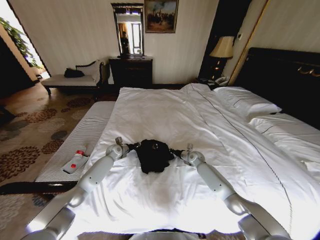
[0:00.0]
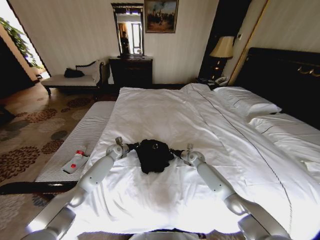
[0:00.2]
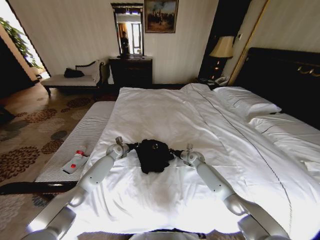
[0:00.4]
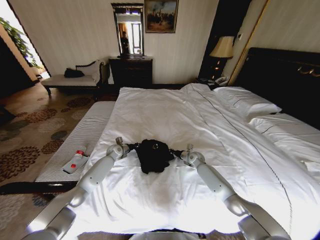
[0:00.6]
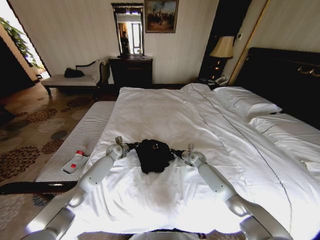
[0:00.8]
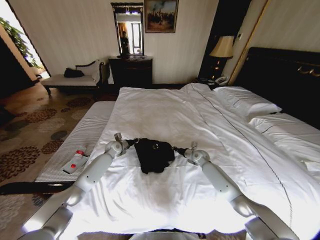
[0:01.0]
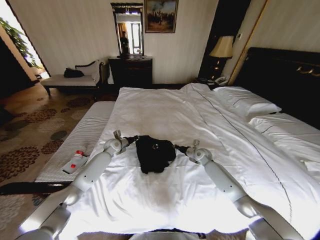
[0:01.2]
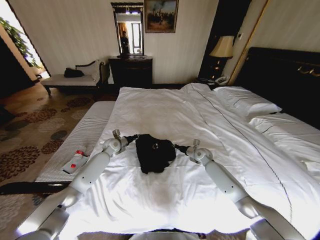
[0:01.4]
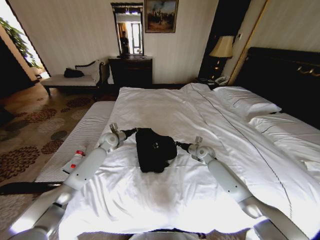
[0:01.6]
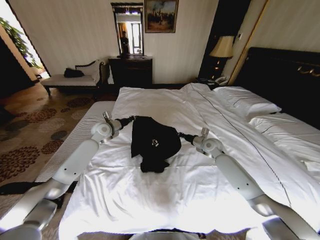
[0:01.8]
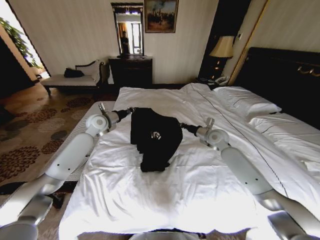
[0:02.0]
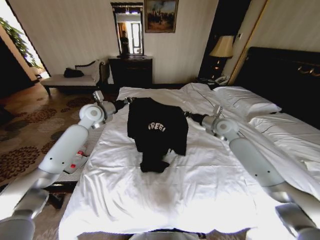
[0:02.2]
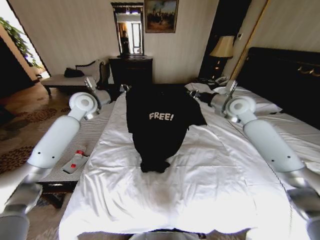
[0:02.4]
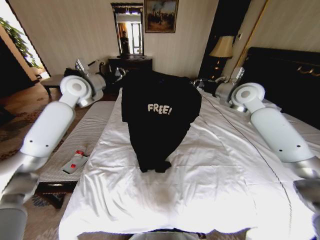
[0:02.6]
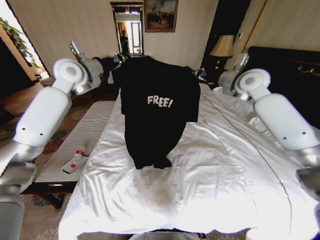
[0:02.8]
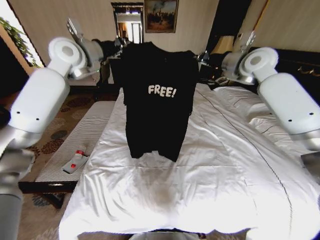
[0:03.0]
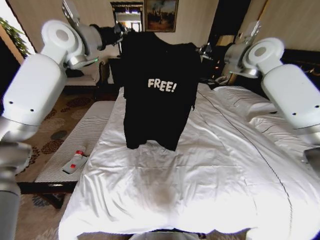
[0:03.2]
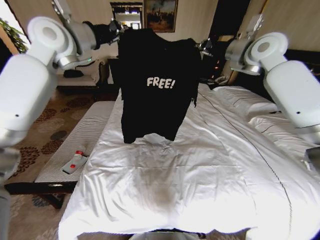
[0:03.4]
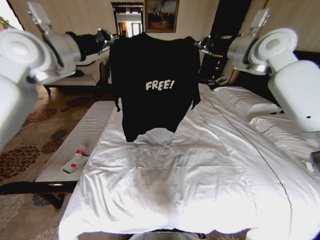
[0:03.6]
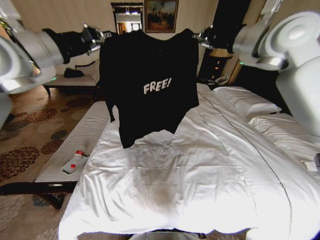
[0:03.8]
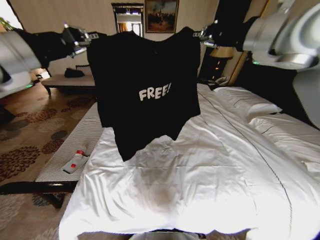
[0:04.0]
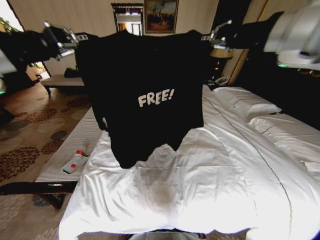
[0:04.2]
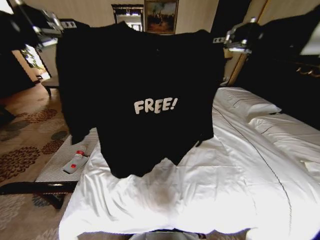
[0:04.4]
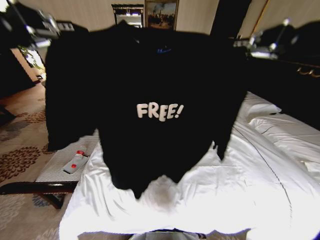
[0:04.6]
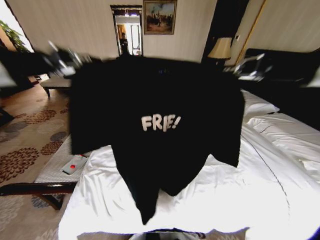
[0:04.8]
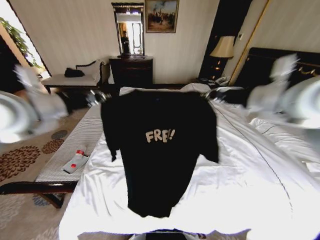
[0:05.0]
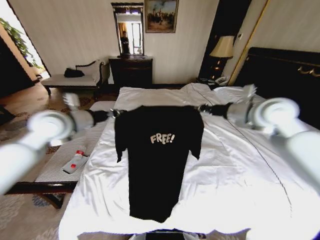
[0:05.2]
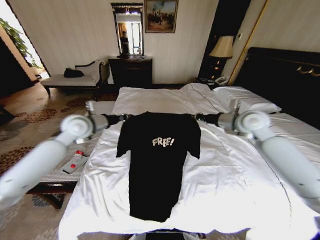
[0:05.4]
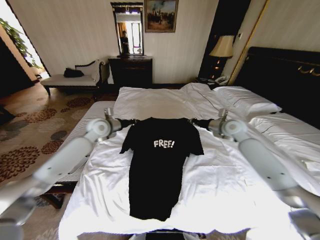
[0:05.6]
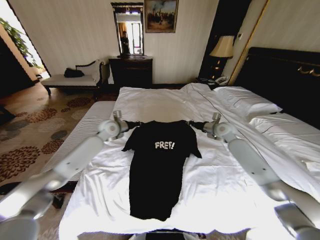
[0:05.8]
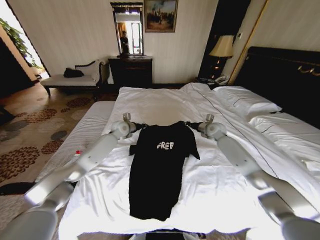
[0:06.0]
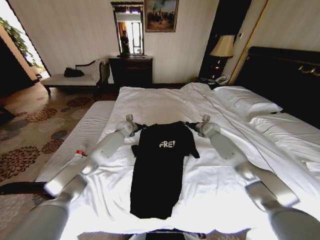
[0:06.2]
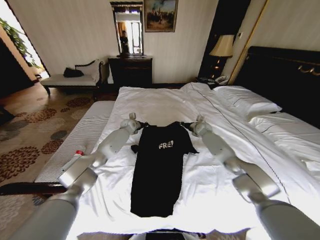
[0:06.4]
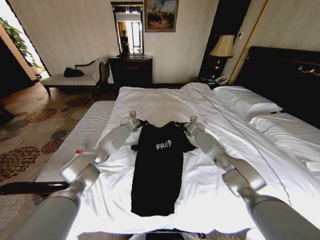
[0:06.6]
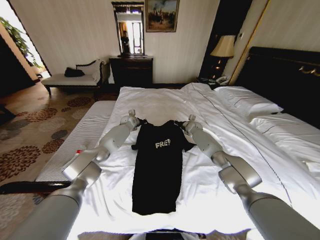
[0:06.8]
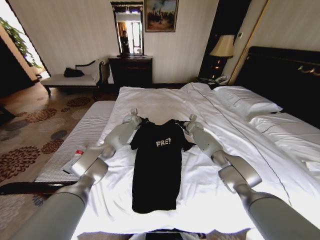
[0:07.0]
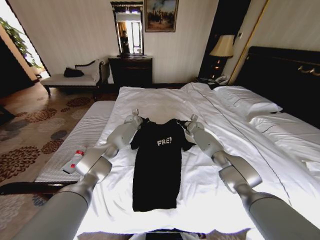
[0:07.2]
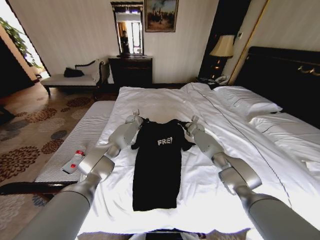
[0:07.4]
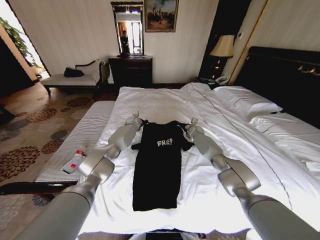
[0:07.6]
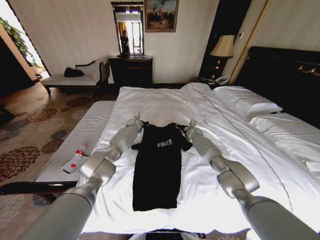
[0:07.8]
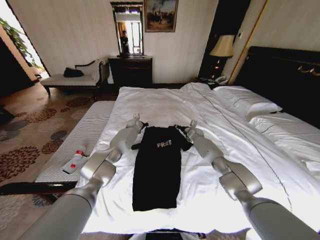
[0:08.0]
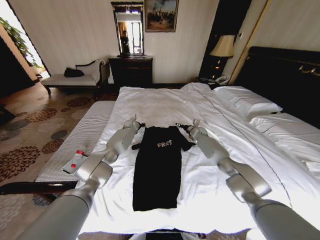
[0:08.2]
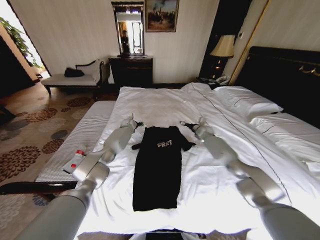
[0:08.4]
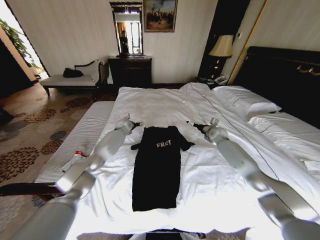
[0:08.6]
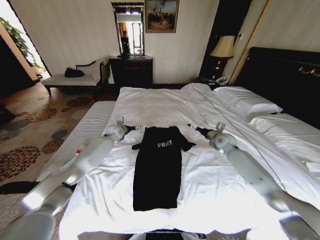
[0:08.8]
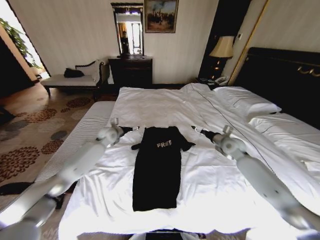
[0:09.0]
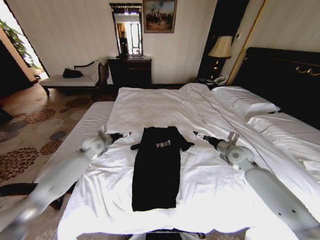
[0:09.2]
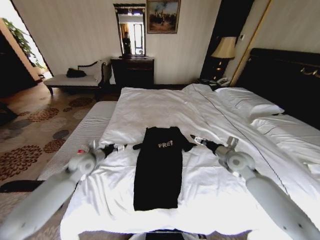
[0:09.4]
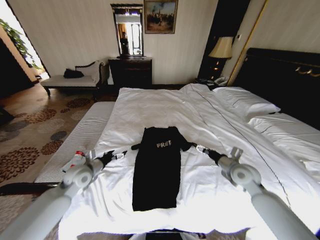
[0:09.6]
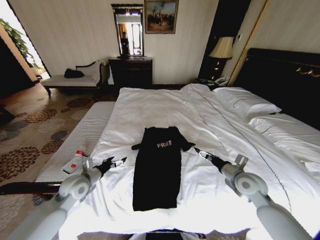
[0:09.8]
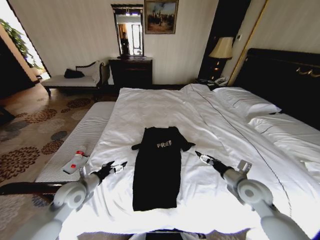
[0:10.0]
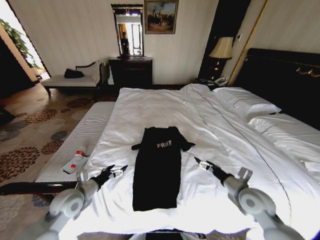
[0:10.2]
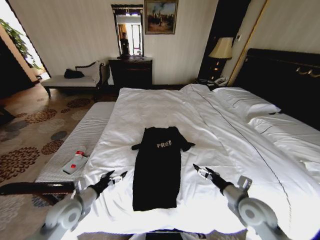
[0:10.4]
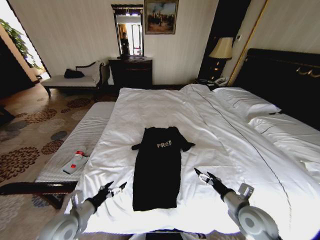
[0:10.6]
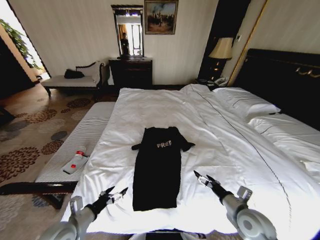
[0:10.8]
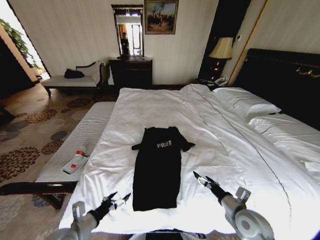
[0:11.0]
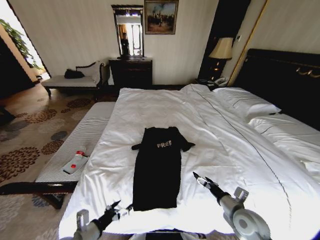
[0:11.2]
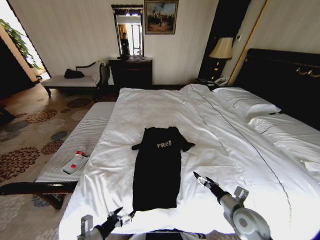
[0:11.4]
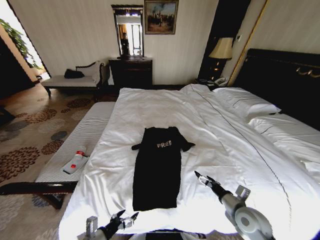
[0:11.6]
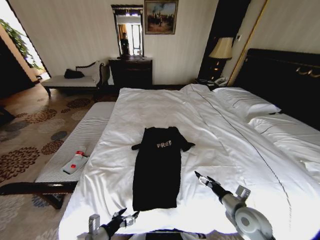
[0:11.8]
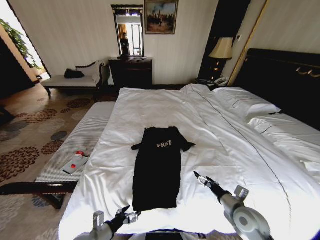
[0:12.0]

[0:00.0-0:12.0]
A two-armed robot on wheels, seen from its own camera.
Task of the whole recording: Fold the clothes on the bed.
0:00.0 to 0:01.6: The right gripper travels upward by about 10 cm. The left gripper is displaced upward by about 15 cm, and closes.
0:01.6 to 0:03.0: The grippers both shift upward by some 40 cm.
0:03.0 to 0:04.4: Both grippers travel together backward, roughly 25 cm.
0:04.4 to 0:06.0: The right gripper moves downward and forward, approximately 50 cm. Meanwhile the left gripper moves downward, forward and to the right, approximately 50 cm.
0:06.0 to 0:07.6: The left gripper shifts about 15 cm forward and downward, while the right gripper heads downward, forward and to the left, covering about 15 cm.
0:07.6 to 0:09.0: The left gripper heads backward and to the left, covering approximately 20 cm, and opens its fingers. The right gripper is displaced backward and to the right by some 20 cm, and opens its fingers.
0:09.0 to 0:10.4: Both grippers move backward, some 30 cm.
0:10.4 to 0:12.0: The left gripper heads backward, downward and to the right, covering about 15 cm.

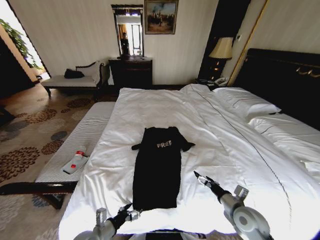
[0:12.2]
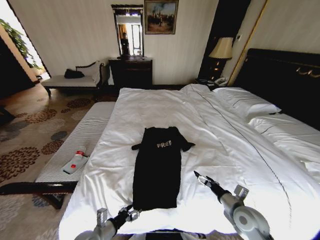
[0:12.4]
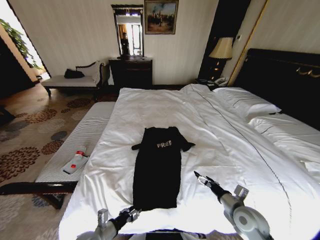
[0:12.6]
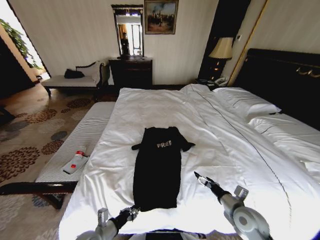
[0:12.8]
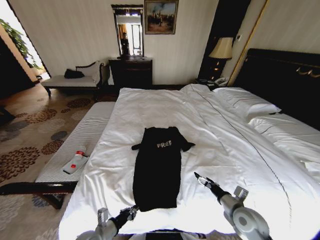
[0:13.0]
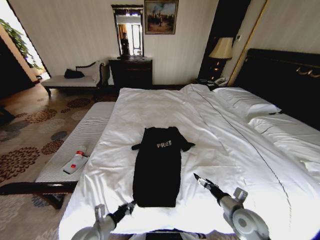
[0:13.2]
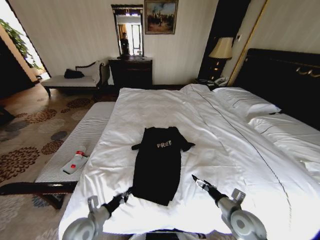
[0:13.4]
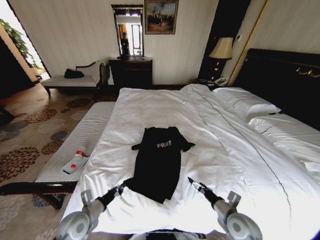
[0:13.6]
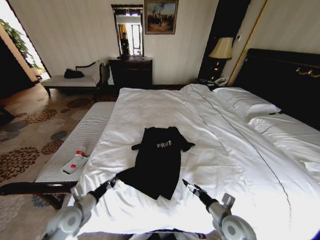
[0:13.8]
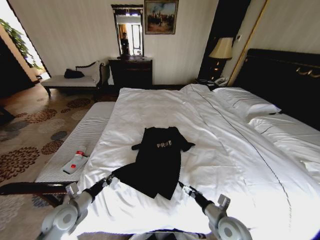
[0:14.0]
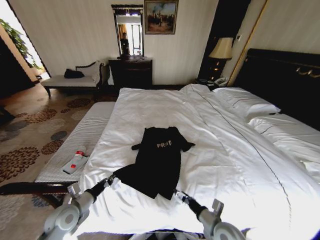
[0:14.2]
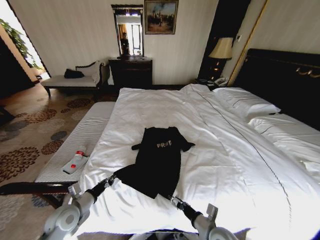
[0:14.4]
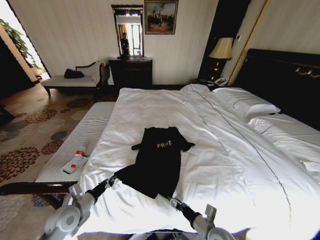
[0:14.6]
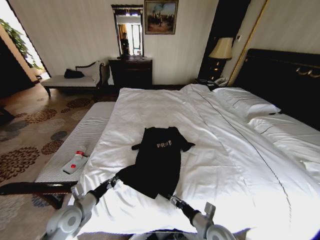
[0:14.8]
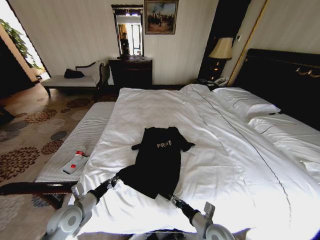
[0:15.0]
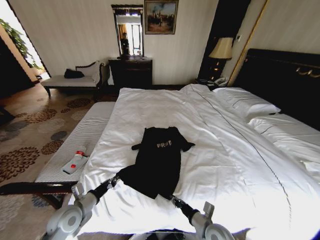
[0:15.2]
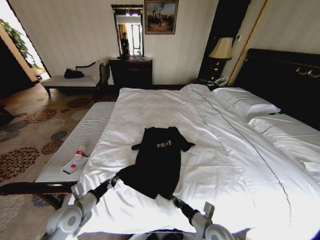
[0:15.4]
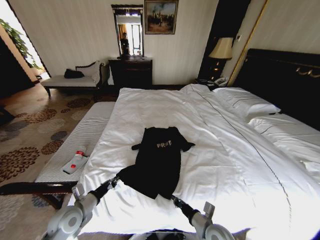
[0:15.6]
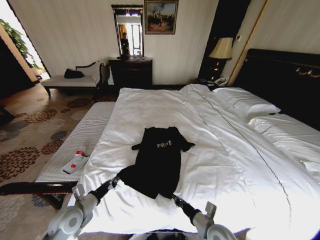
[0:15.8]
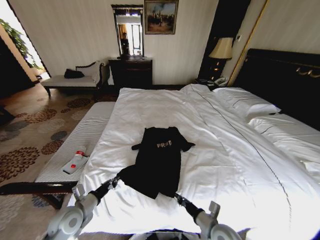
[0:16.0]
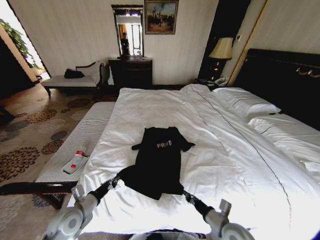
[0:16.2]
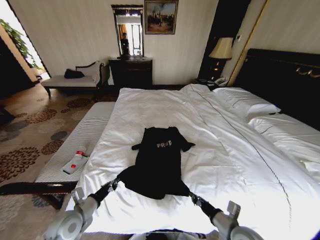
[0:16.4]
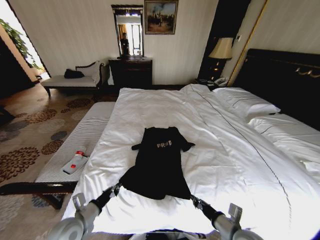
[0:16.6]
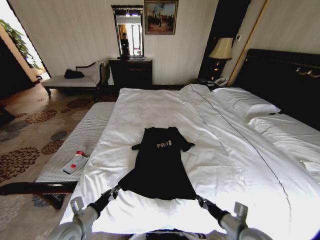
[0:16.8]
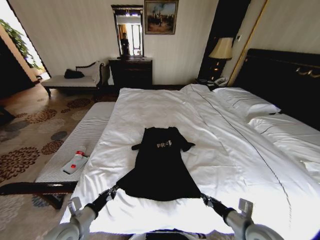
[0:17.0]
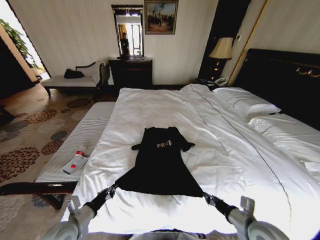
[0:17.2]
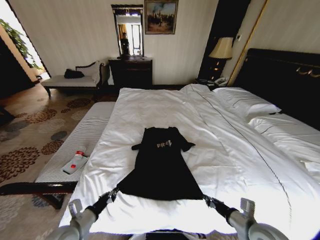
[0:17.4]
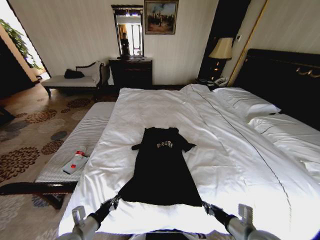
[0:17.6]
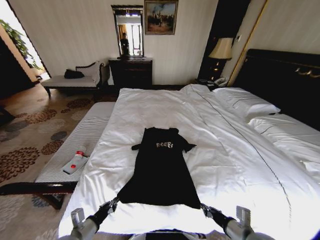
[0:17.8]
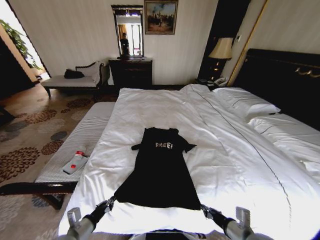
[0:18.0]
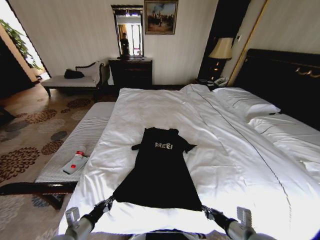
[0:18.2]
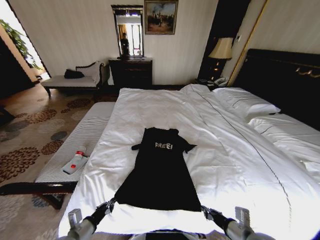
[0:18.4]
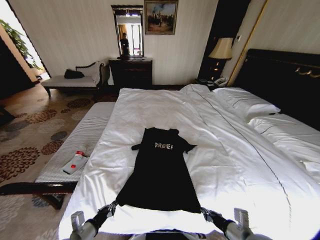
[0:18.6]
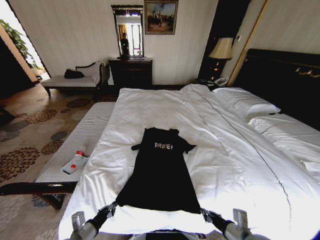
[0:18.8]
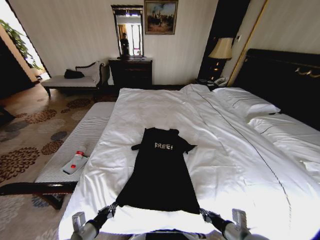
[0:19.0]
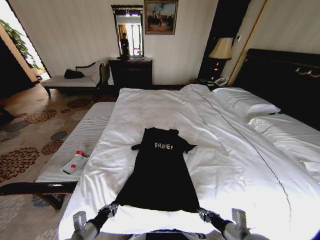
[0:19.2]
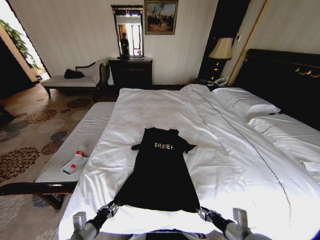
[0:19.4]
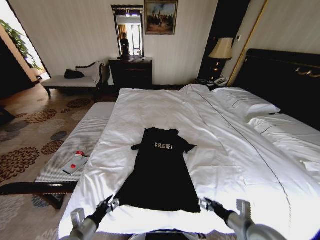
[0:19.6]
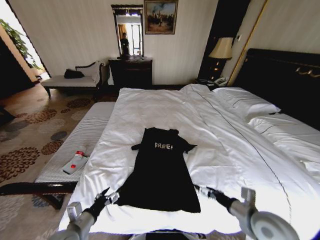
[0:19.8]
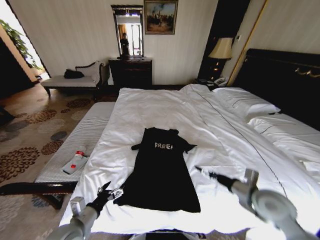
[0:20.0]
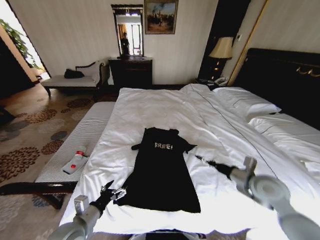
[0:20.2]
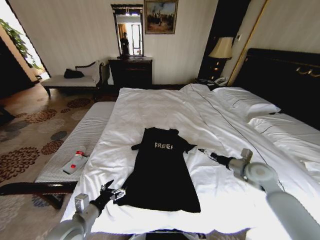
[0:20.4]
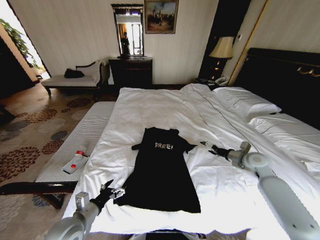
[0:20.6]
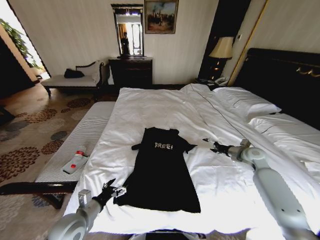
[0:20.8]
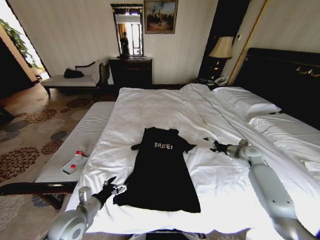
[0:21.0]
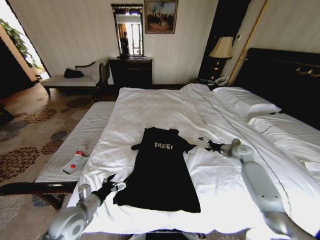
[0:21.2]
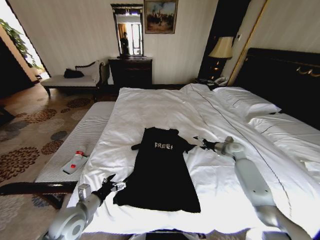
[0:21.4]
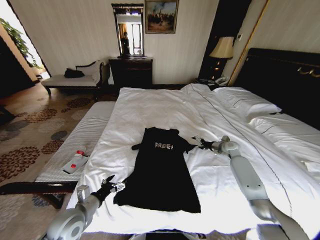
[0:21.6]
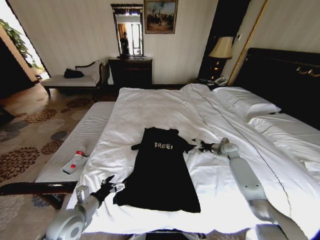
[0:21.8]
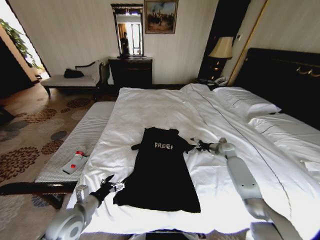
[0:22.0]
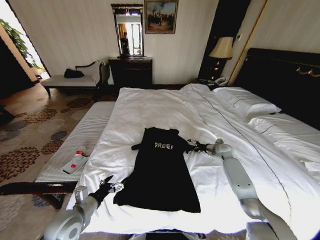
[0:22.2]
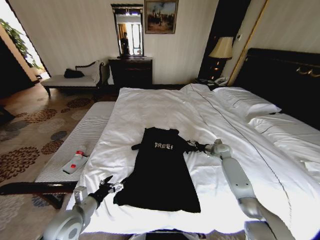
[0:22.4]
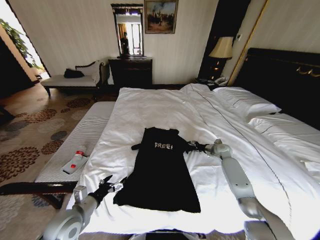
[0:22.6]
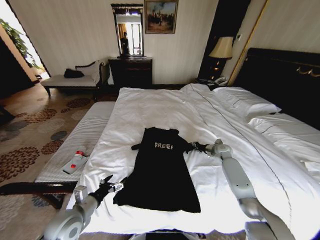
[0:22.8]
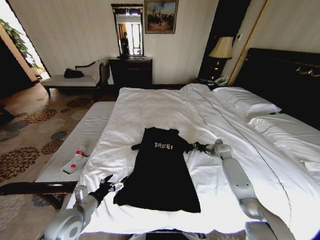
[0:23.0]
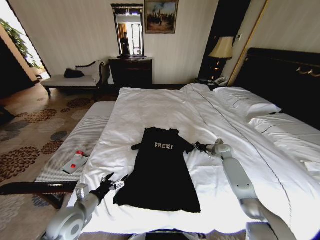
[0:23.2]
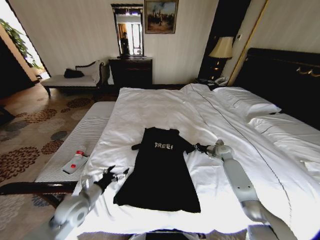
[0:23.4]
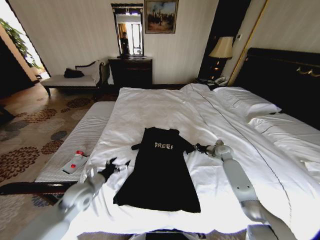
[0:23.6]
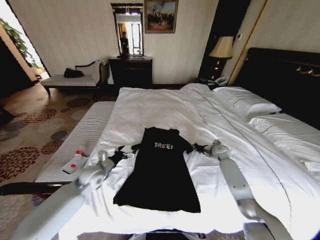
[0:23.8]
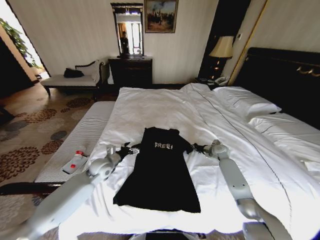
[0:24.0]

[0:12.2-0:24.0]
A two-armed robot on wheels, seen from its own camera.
Task of the whole recording: Fold the clothes on the bed.
0:12.2 to 0:13.6: The left gripper goes approximately 5 cm forward, and closes up.
0:13.6 to 0:15.2: The right gripper is displaced to the left by about 10 cm, and closes.
0:15.2 to 0:16.6: The right gripper travels upward and to the right by approximately 10 cm.
0:16.6 to 0:18.2: There are only small adjustments of the grippers.
0:18.2 to 0:19.6: The left gripper opens up, while the right gripper opens.
0:19.6 to 0:21.0: The right gripper travels forward and to the right by roughly 35 cm, while the left gripper moves forward, some 5 cm, and opens its fingers.
0:21.0 to 0:22.6: The right gripper is displaced to the left, forward and downward by some 10 cm, and closes its fingers.
0:22.6 to 0:24.0: The right gripper closes its fingers. Meanwhile the left gripper moves forward, some 20 cm.
